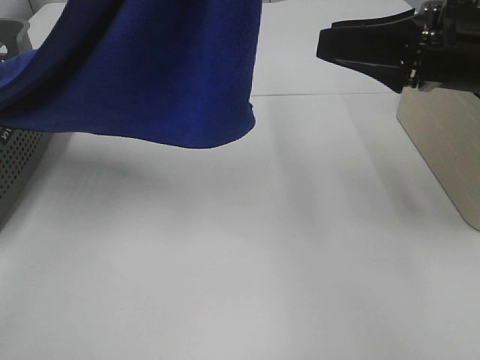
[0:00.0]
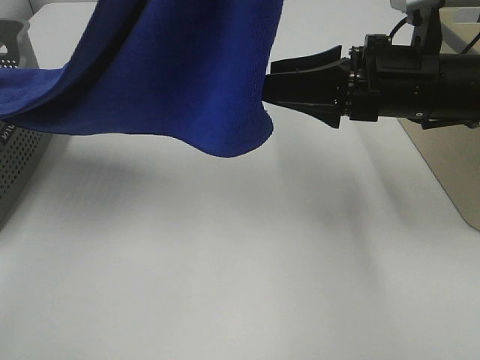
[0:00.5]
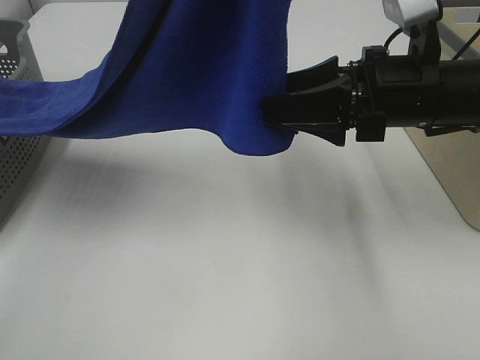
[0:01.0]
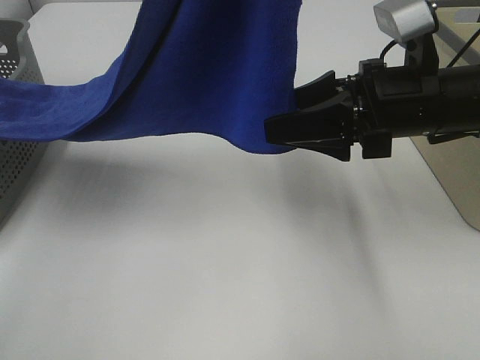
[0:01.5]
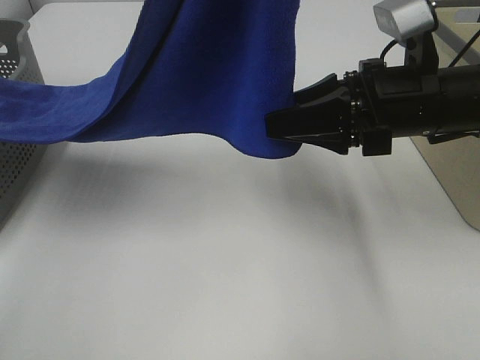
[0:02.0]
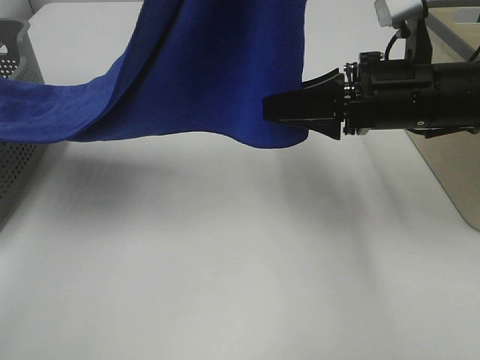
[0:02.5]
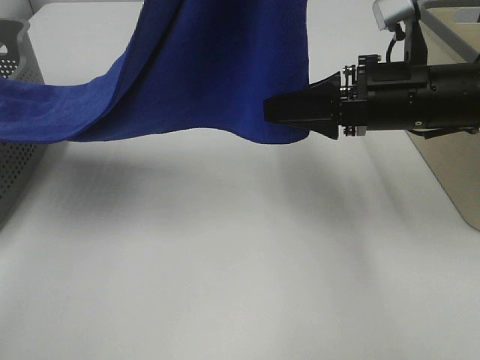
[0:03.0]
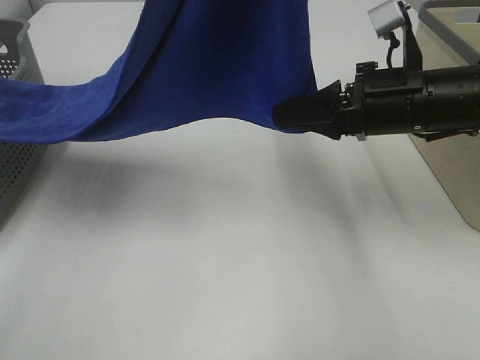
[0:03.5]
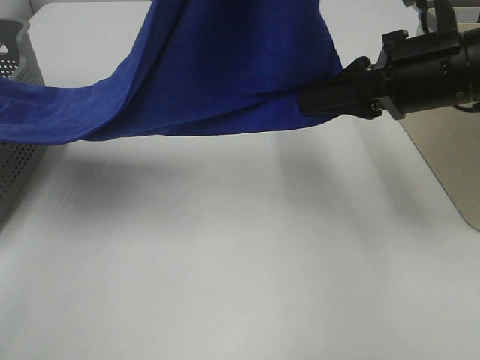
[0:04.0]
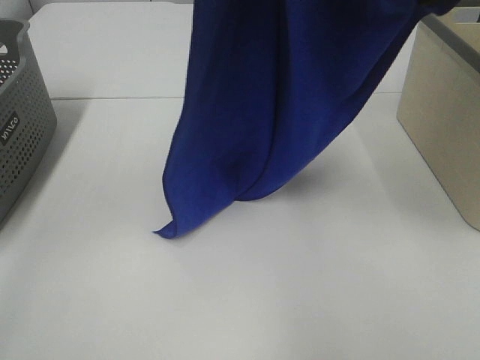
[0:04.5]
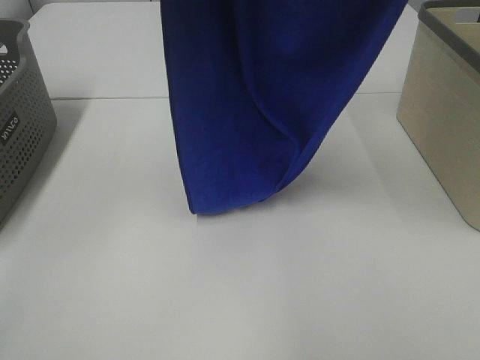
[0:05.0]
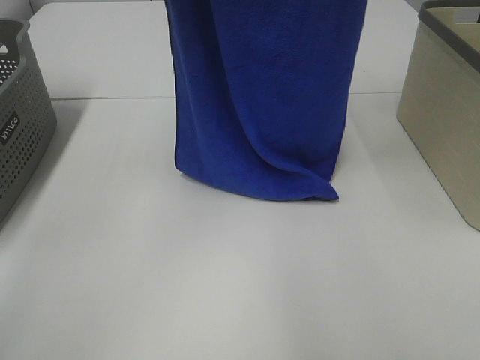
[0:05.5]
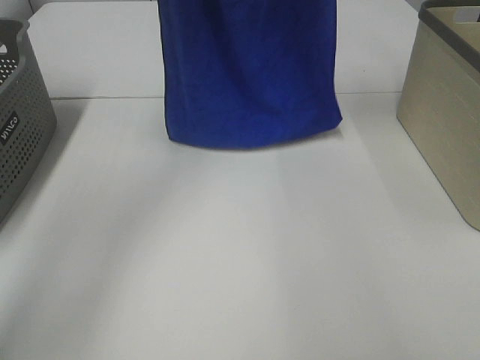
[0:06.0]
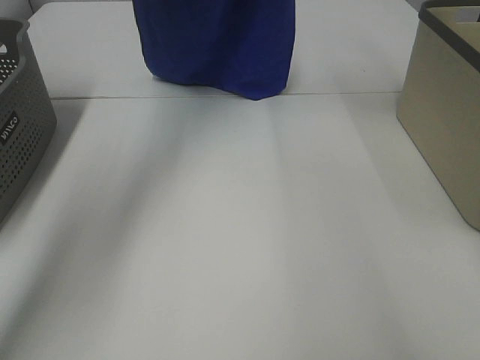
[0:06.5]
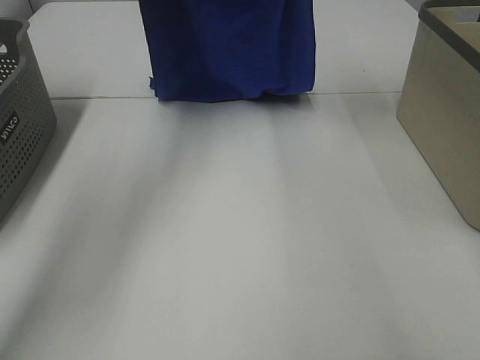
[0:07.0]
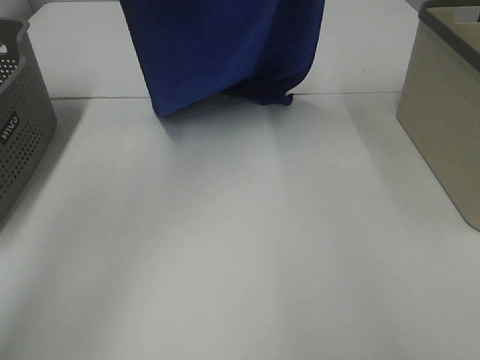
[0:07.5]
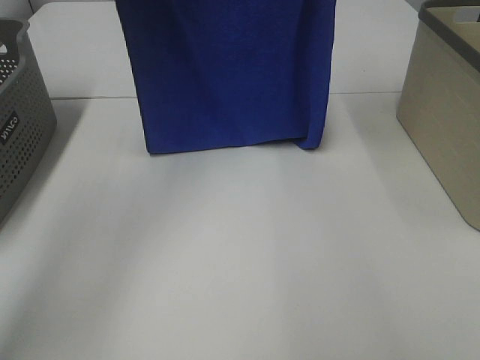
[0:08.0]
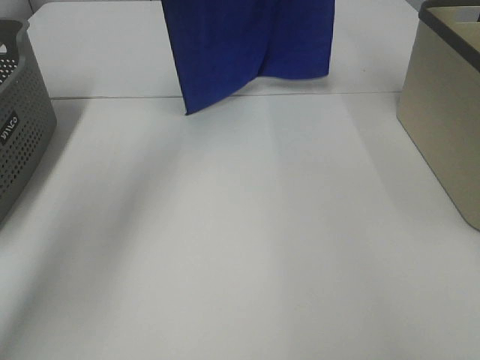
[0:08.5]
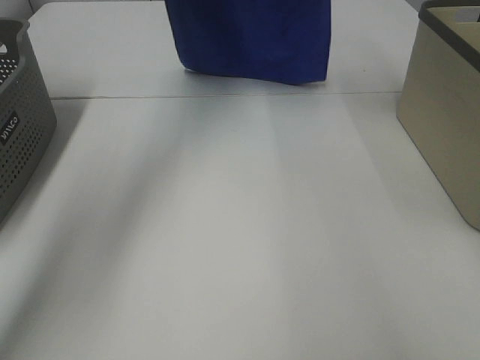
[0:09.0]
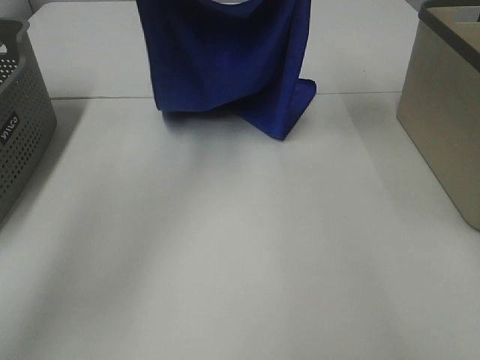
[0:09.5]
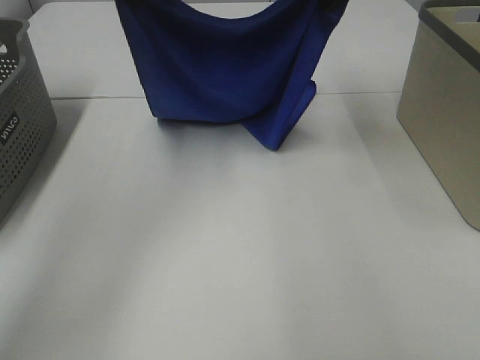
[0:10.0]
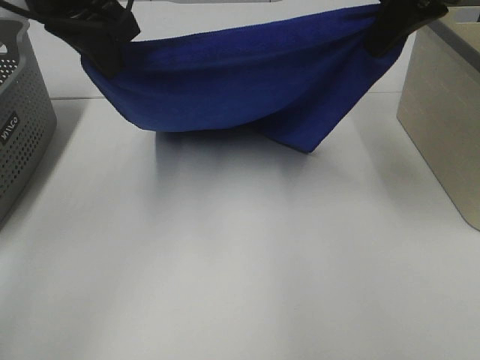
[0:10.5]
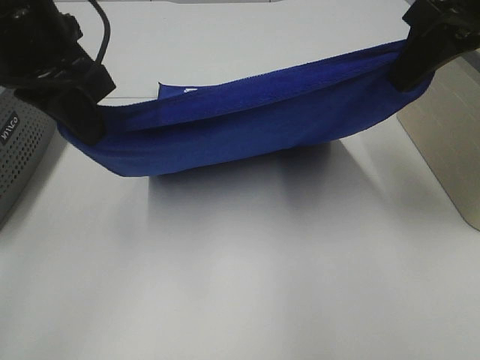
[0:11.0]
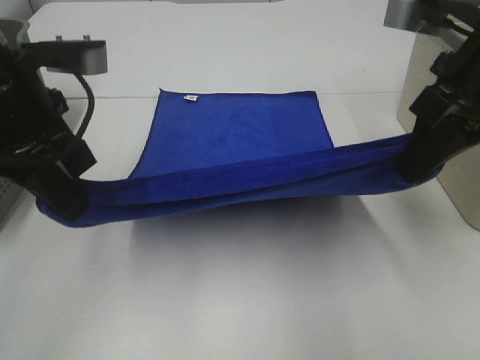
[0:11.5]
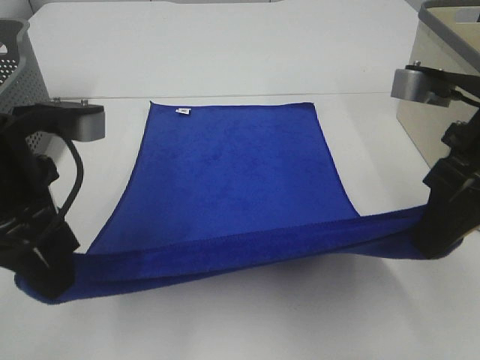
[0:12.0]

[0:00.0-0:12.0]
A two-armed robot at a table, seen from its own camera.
Task of the whole recording: Remove the towel and place it.
Step, 0:00.0 to 0:02.5: Right hand: grab a corner of the blue towel and straighten it.
Step, 0:03.0 to 0:09.5: Left hand: spread the blue towel flat on the table.
Step, 0:03.0 to 0:09.5: Right hand: spread the blue towel flat on the table.
0:00.0 to 0:02.0: The right gripper moves about 5 cm.
0:02.0 to 0:04.0: The right gripper closes.
0:04.0 to 0:06.0: The right gripper goes roughly 30 cm upward and forward; the left gripper is displaced forward and to the left by roughly 20 cm.
0:06.0 to 0:08.0: The right gripper moves up and down over approximately 10 cm, changing direction 2 times. The left gripper moves about 5 cm forward and comes back.
0:08.0 to 0:10.0: The grippers both shift downward by some 10 cm.
0:10.0 to 0:12.0: The two grippers go roughly 25 cm backward and downward.

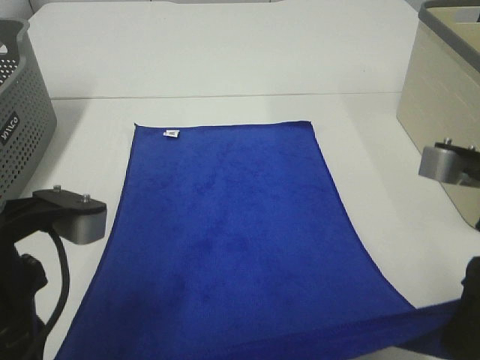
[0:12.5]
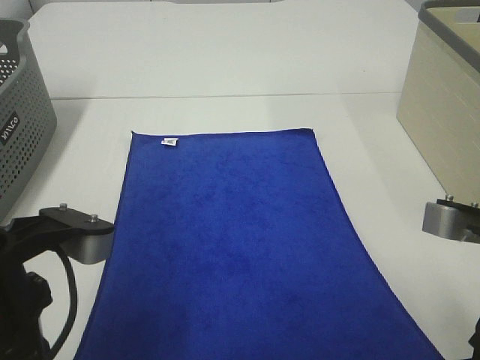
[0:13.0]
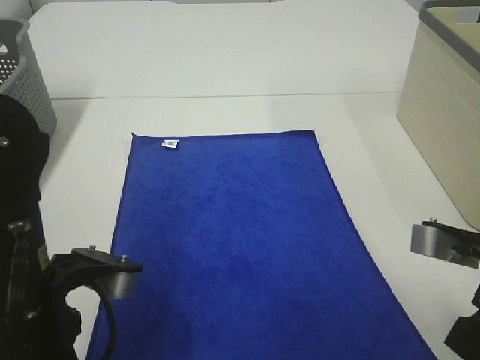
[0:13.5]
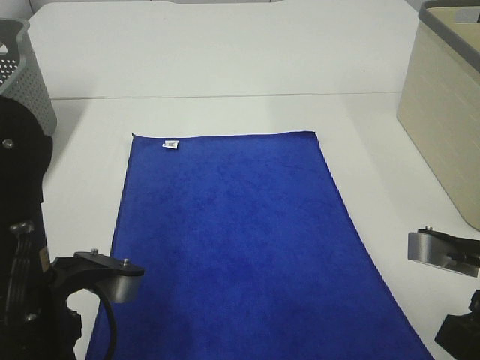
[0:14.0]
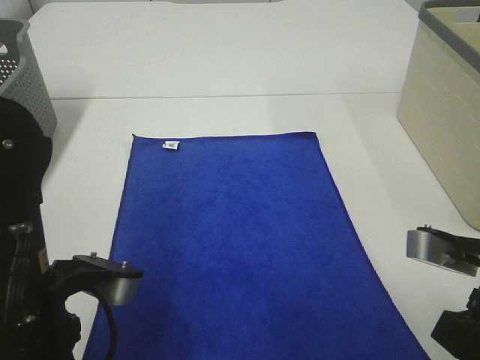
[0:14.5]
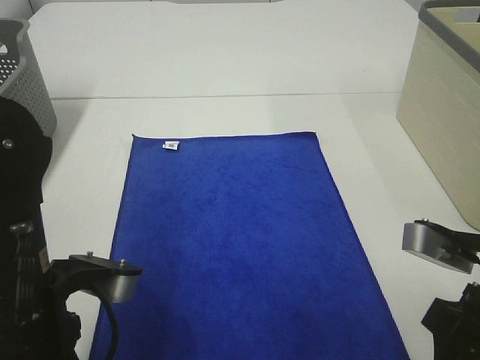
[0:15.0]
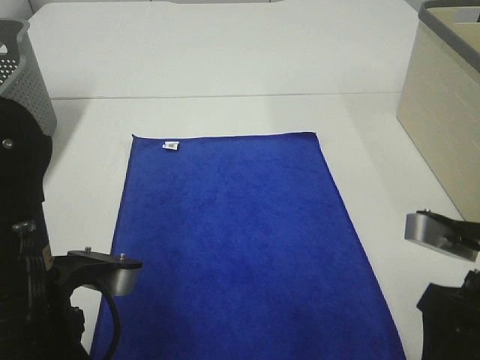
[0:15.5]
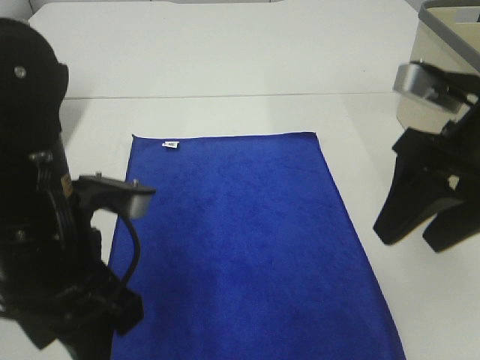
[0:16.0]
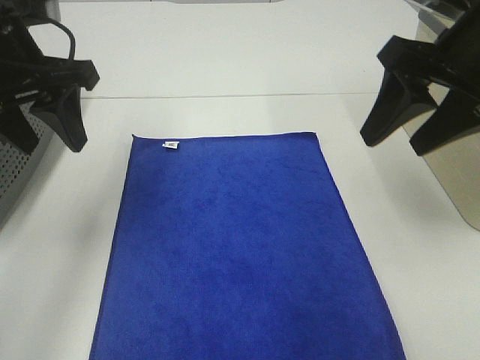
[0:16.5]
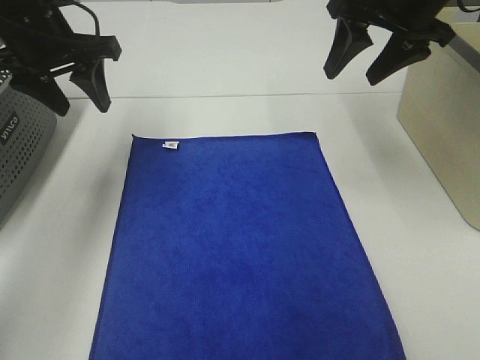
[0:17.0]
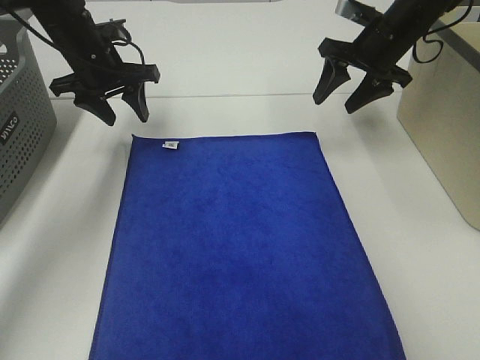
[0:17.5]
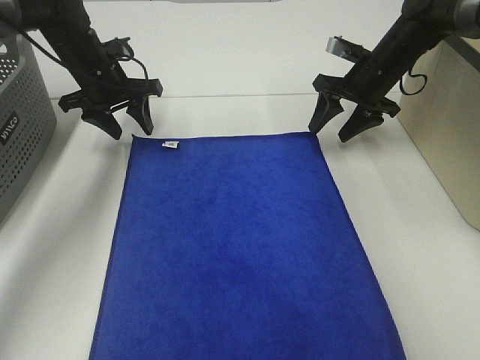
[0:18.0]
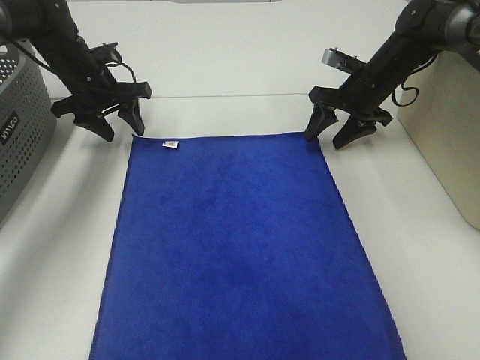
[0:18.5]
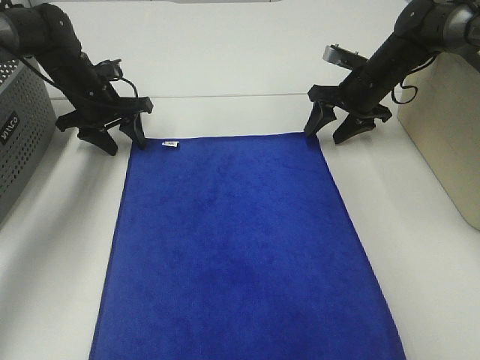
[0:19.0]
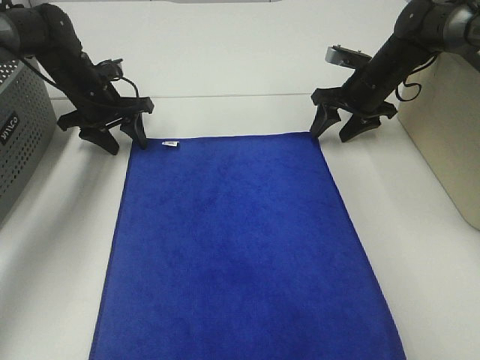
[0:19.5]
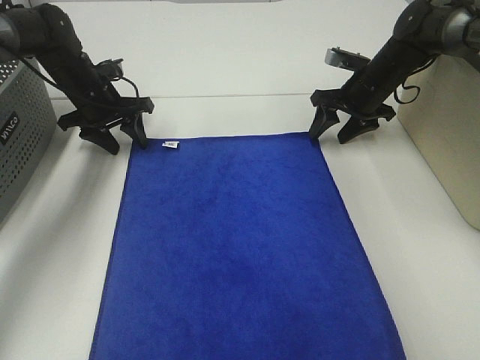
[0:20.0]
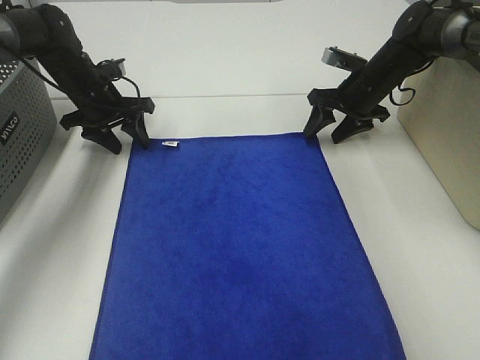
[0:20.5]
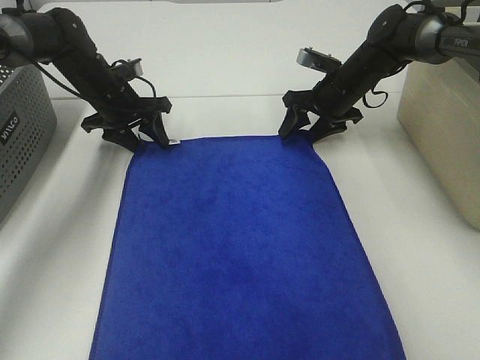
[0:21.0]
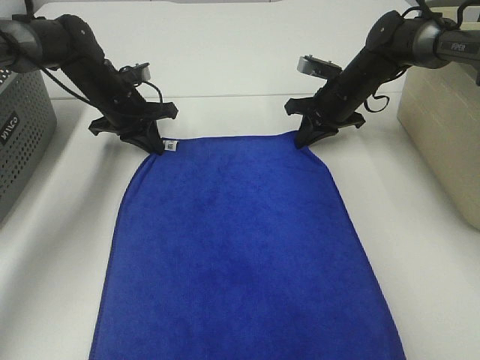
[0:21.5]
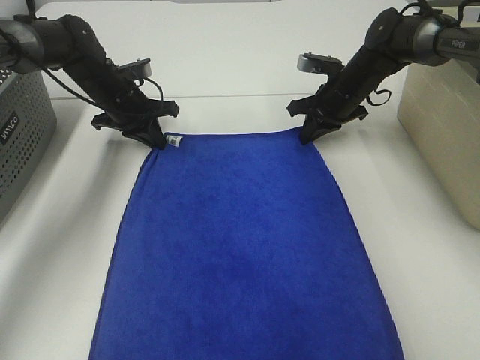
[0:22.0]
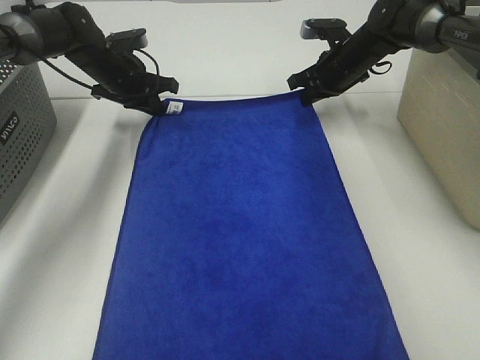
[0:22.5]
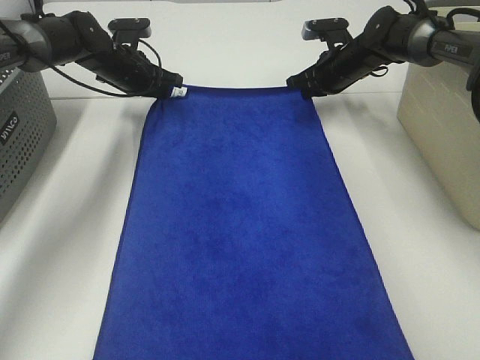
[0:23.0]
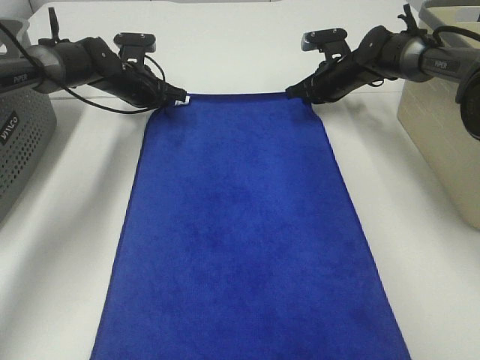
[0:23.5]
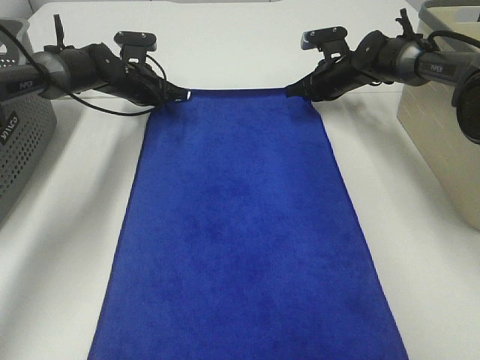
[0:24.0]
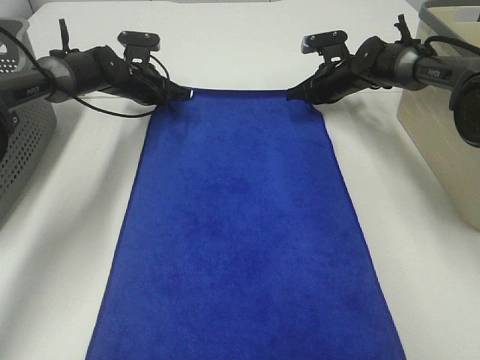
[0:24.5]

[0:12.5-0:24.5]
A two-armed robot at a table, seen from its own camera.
Task of the whole recording: Remove the towel and place it.
Step, 0:12.5 to 0:17.5: Left hand:adjust the blue towel.
Step, 0:12.5 to 0:18.0: Right hand:adjust the blue towel.
0:12.5 to 0:14.5: Both grippers move downward, roughly 5 cm.
0:14.5 to 0:16.5: Both grippers travel together forward and upward, about 20 cm. The left gripper opens up, while the right gripper opens its fingers.
0:16.5 to 0:18.5: Both grippers move forward and downward, approximately 25 cm.
0:18.5 to 0:20.5: There are only small adjustments of the grippers.
0:20.5 to 0:22.5: The left gripper closes, while the right gripper moves some 5 cm, and closes up.
0:22.5 to 0:24.5: The left gripper changes place by about 5 cm, while the right gripper shifts by about 5 cm.

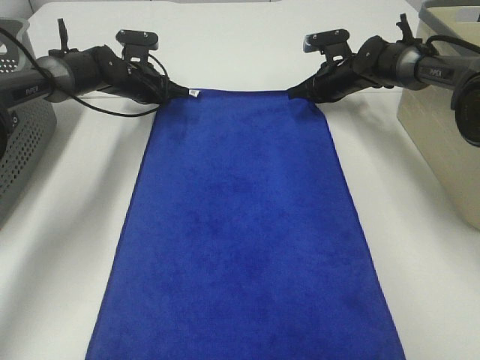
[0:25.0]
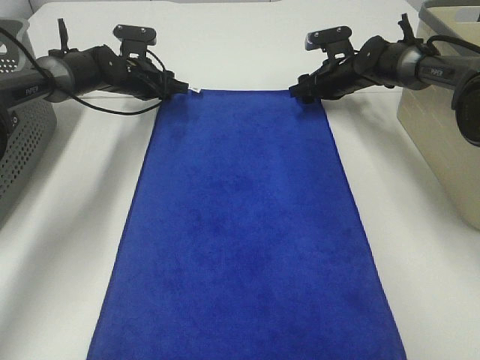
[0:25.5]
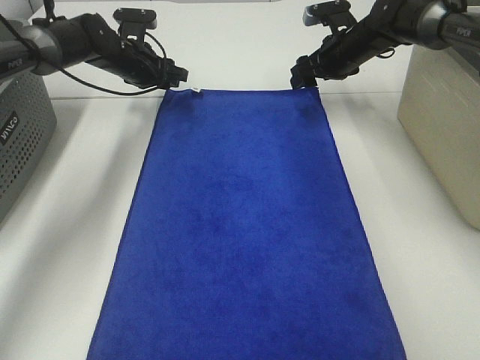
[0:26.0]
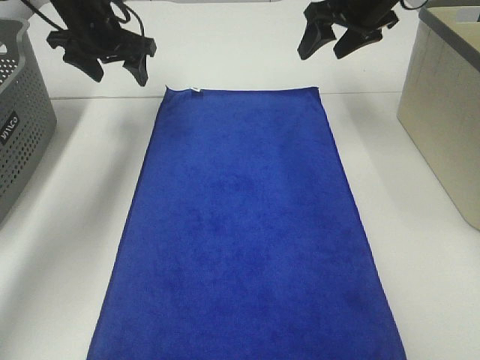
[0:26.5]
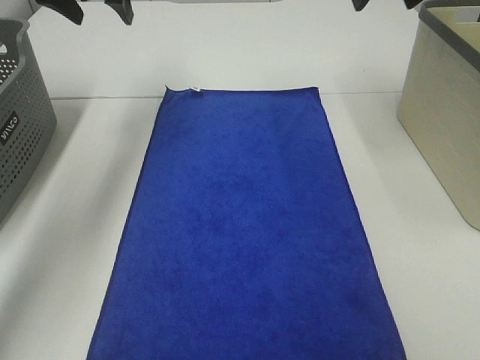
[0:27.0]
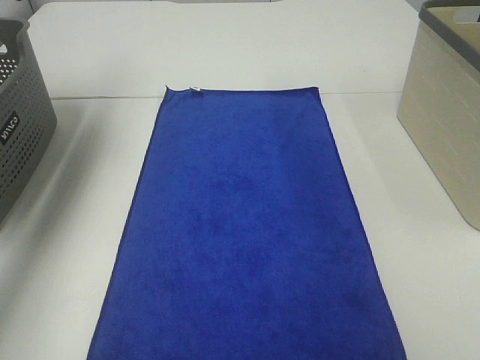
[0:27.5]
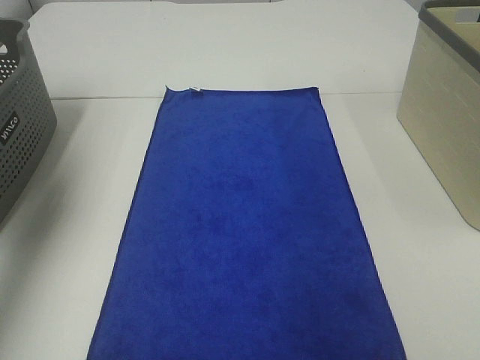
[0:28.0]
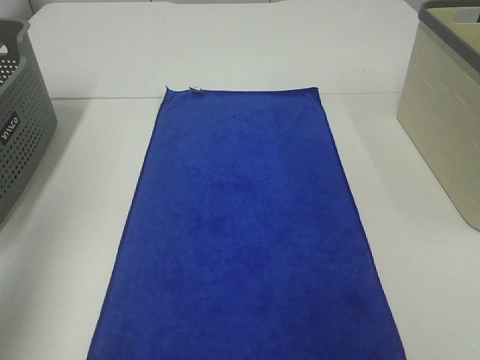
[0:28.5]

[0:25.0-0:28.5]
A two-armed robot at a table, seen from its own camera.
Task of the whole recording: Remove the towel and place it.
0:25.0 to 0:27.0: The right gripper heads upward and backward, covering roughly 30 cm, and opens. The left gripper shifts approximately 25 cm upward, and opens.
0:27.0 to 0:28.5: The left gripper moves backward, some 35 cm.
